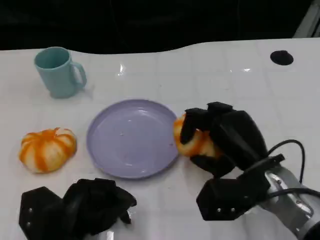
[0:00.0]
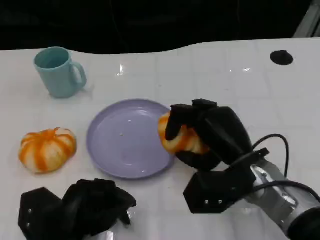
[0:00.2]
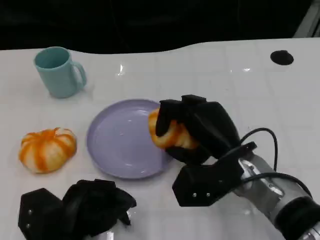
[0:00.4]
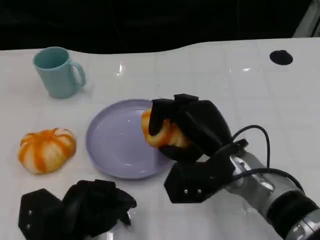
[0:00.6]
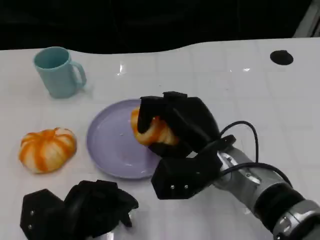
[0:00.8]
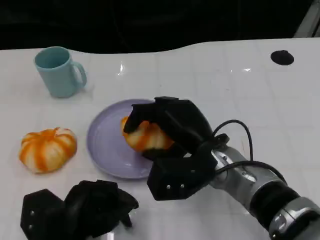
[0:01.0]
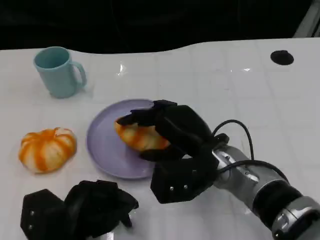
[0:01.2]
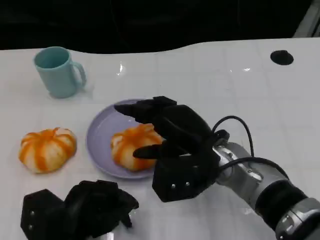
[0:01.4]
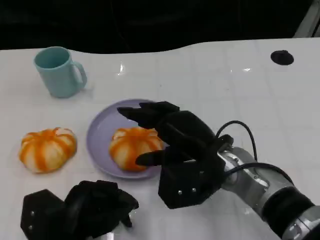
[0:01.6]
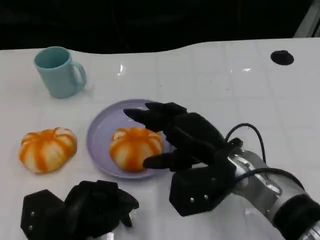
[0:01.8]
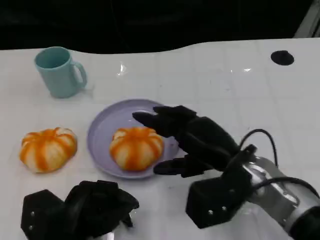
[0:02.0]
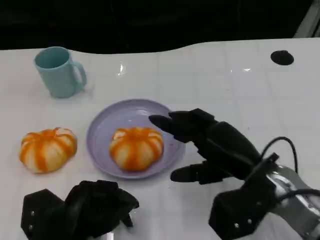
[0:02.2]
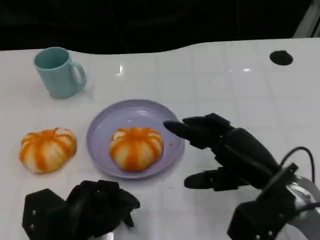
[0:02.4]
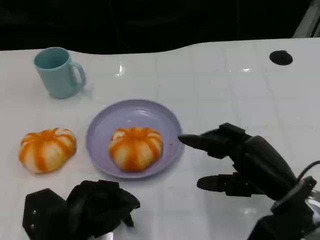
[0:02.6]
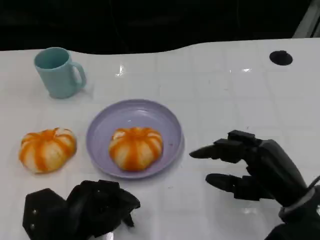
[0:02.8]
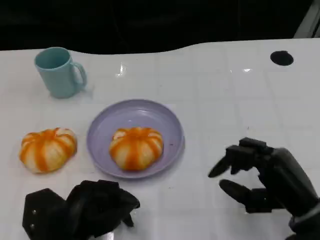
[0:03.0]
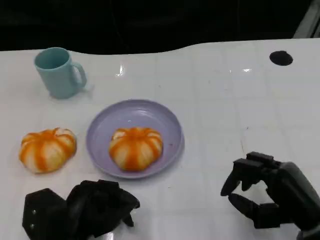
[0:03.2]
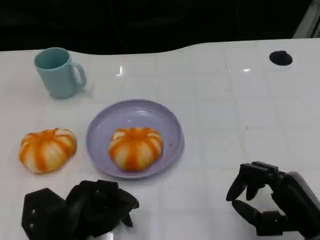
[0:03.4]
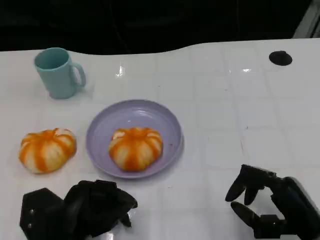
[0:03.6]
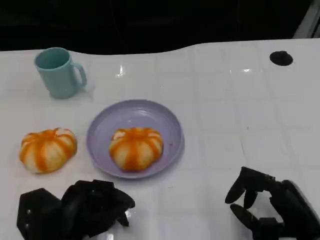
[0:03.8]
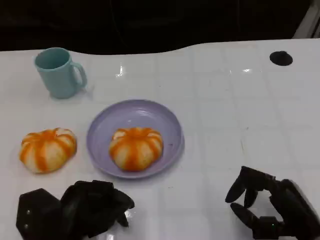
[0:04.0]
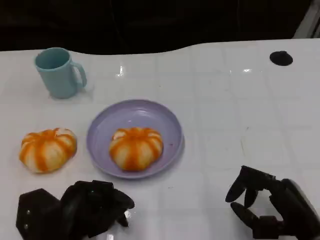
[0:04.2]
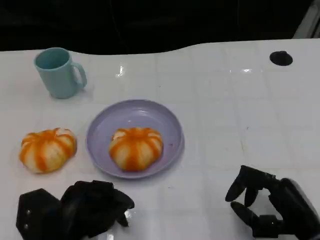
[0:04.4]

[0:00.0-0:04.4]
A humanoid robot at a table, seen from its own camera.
Task of the whole recording: Grasp the bread from the table and place it into the plate.
0:00.0 to 0:01.4: The right hand moves to the left, about 5 cm.
0:01.4 to 0:03.0: The right hand is displaced to the right and backward by approximately 15 cm.
0:03.0 to 0:04.4: The hands move only a little.

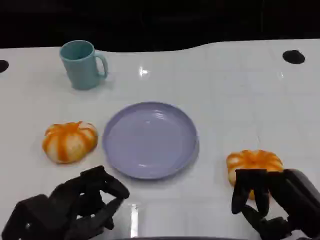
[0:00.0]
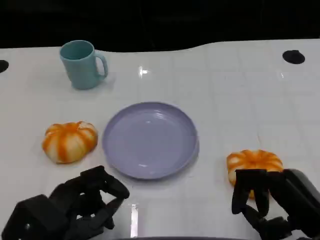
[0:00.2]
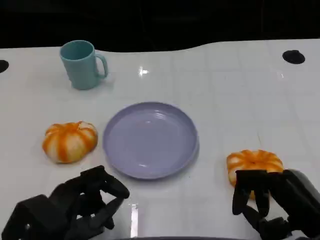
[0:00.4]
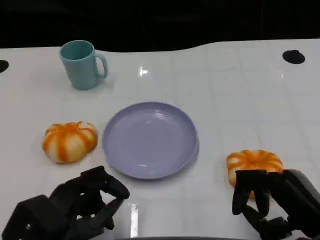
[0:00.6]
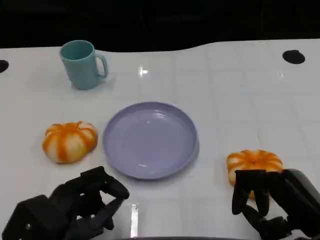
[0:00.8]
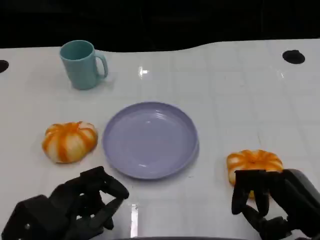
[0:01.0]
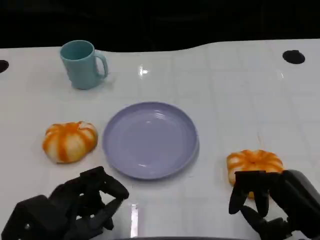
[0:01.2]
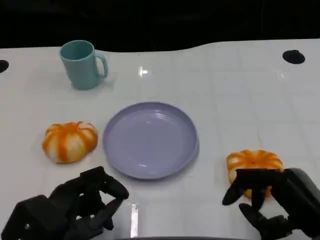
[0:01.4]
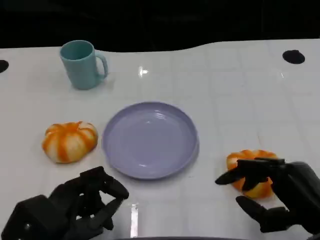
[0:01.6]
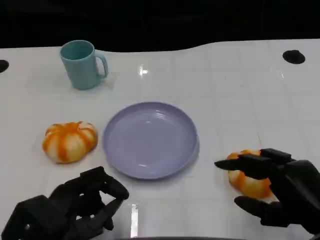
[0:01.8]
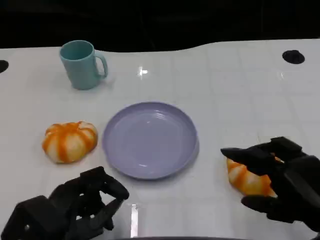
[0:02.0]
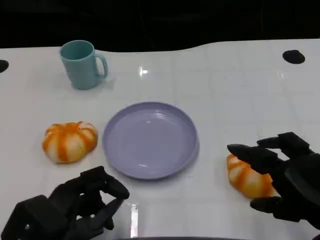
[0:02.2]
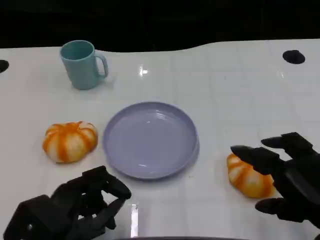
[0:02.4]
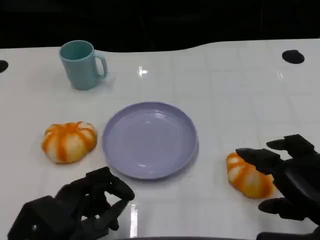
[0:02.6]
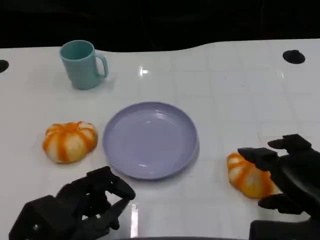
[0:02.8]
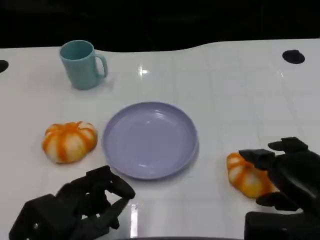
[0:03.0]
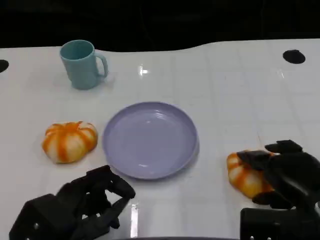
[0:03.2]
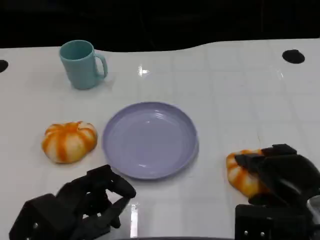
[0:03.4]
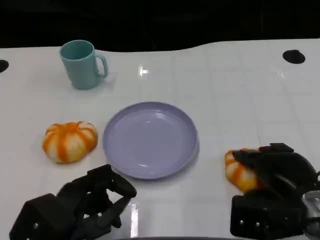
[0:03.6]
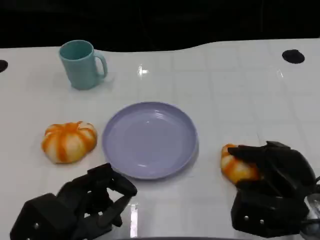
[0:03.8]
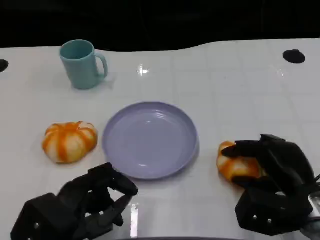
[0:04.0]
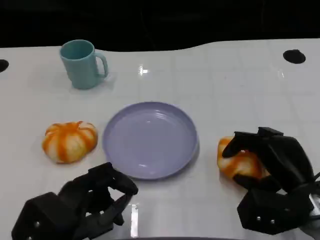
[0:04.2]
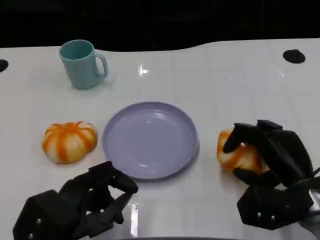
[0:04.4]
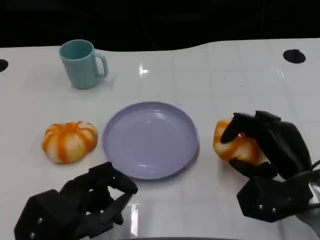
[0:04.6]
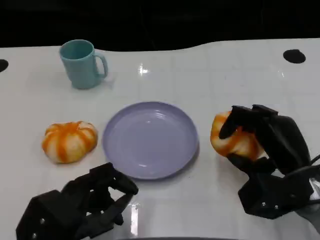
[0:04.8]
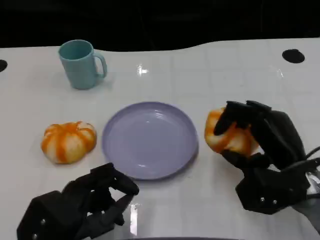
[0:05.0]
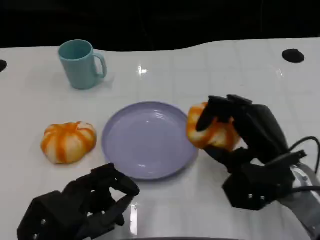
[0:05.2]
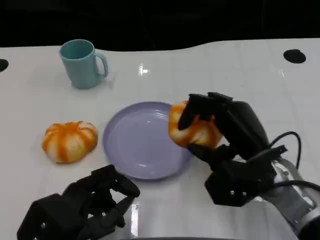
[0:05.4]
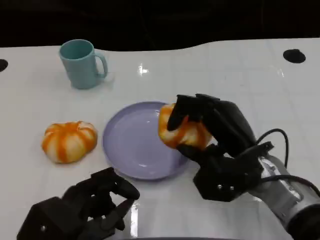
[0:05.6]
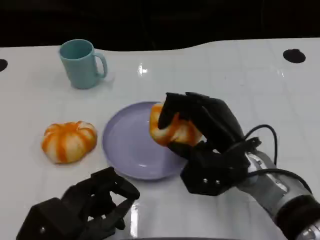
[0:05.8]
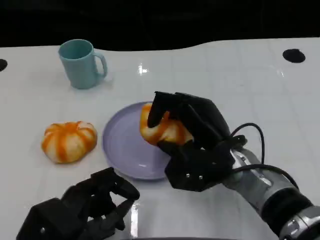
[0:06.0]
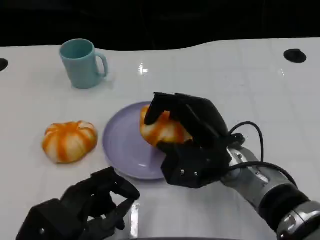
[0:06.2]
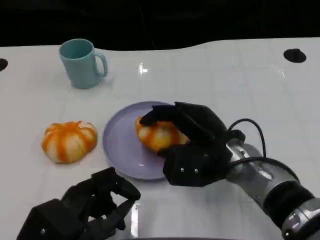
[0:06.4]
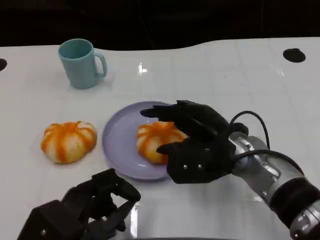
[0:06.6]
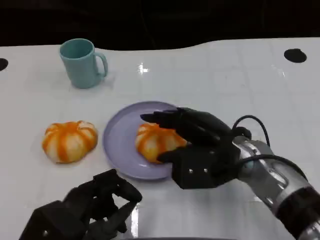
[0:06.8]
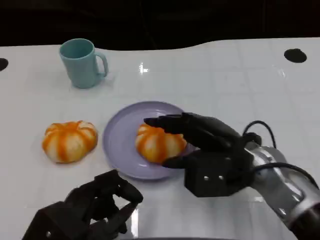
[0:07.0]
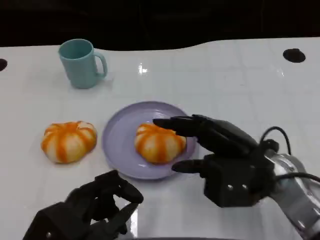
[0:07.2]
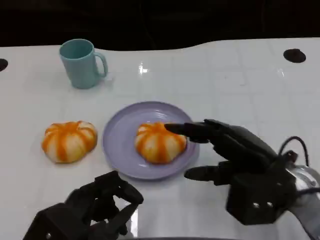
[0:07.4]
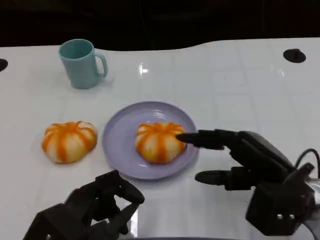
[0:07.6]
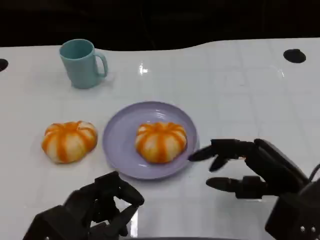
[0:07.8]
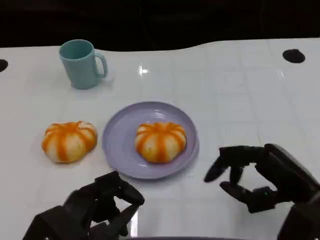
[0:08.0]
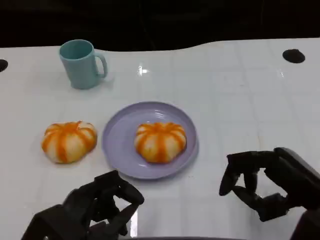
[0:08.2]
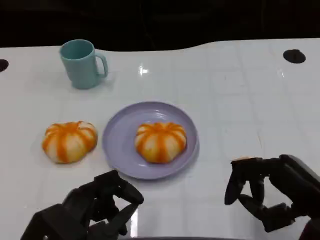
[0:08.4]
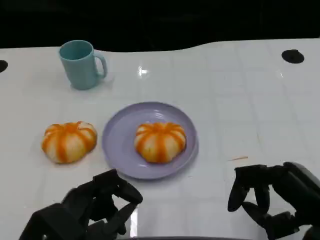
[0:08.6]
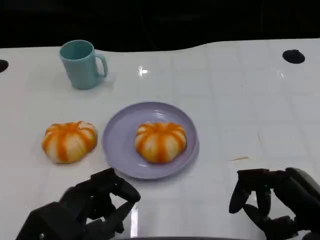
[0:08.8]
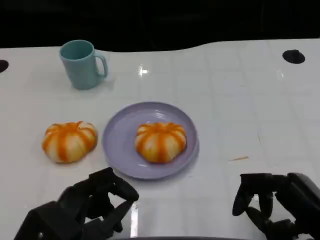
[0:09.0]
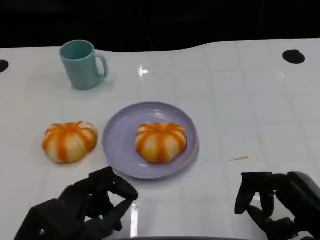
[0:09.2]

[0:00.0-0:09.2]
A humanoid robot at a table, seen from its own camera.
Task of the whole recording: Grasp the bread from the table and place it into the plate.
0:00.0 to 0:01.6: The hands stay close to where they were, moving slightly.
0:03.0 to 0:04.6: The right hand shifts roughly 5 cm forward.
0:04.6 to 0:06.2: The right hand is displaced to the left by some 10 cm.
0:06.2 to 0:07.6: The right hand moves to the right and backward, about 10 cm.
0:07.6 to 0:09.2: The right hand goes some 5 cm backward.

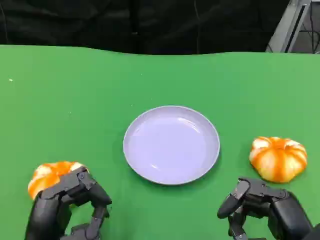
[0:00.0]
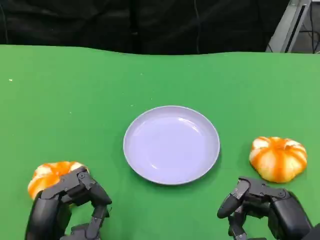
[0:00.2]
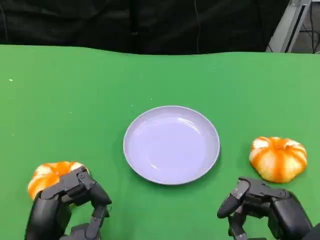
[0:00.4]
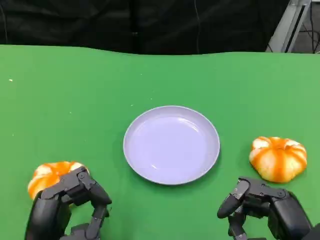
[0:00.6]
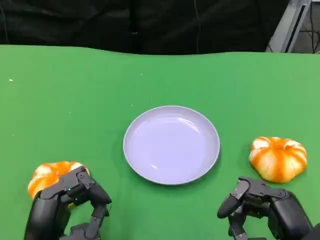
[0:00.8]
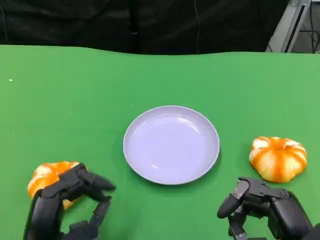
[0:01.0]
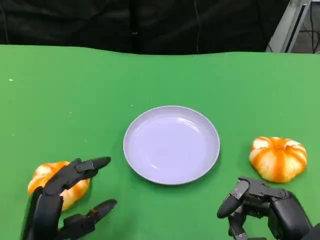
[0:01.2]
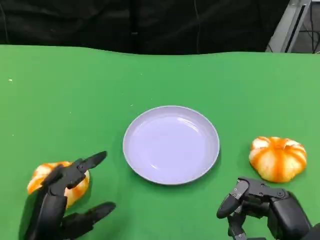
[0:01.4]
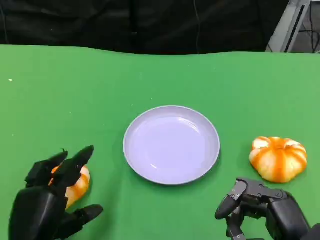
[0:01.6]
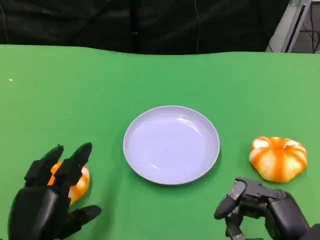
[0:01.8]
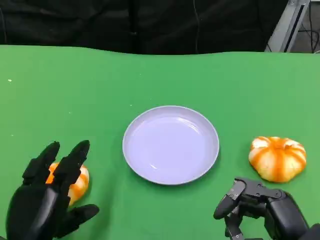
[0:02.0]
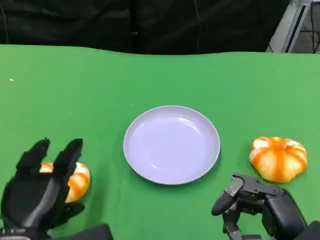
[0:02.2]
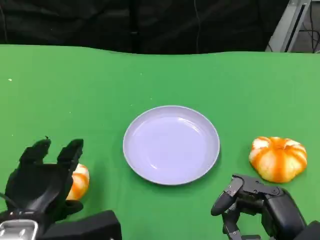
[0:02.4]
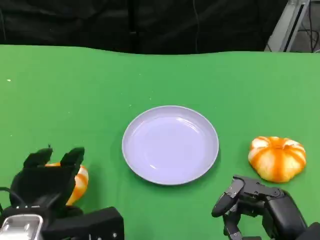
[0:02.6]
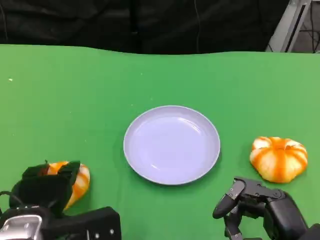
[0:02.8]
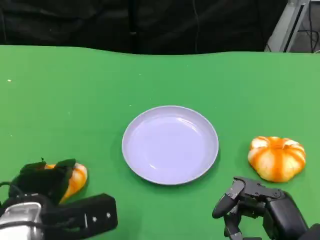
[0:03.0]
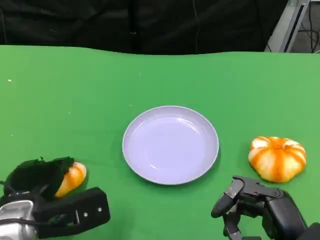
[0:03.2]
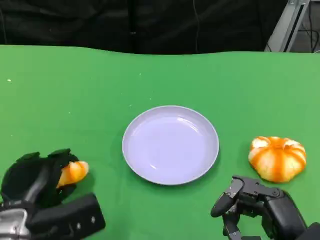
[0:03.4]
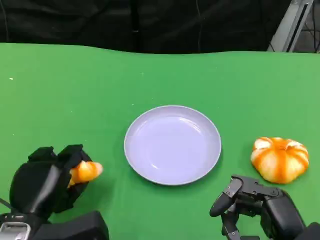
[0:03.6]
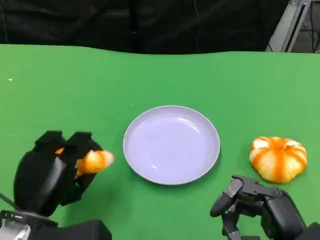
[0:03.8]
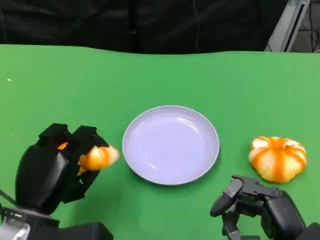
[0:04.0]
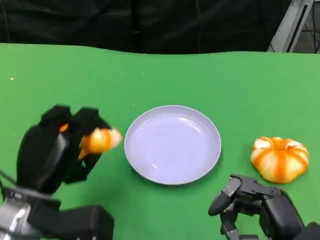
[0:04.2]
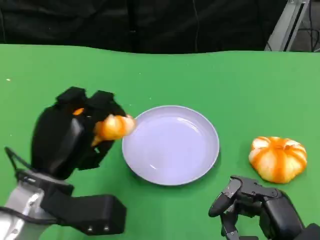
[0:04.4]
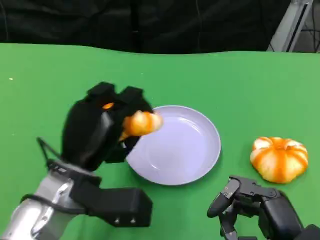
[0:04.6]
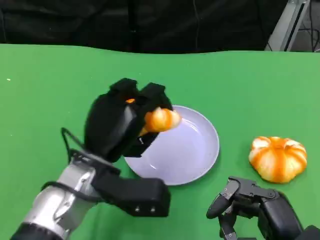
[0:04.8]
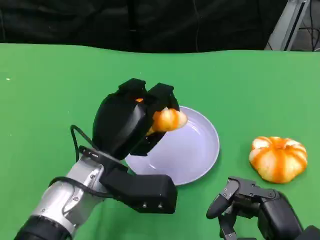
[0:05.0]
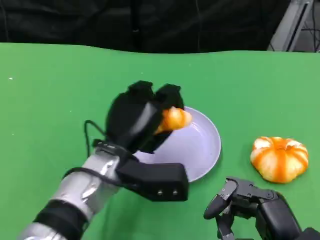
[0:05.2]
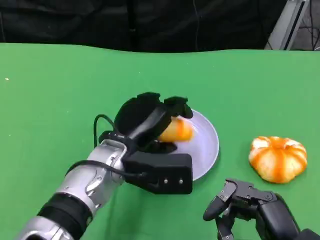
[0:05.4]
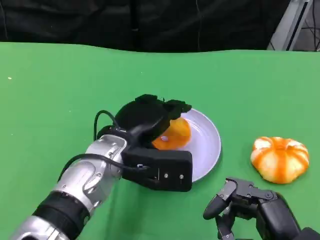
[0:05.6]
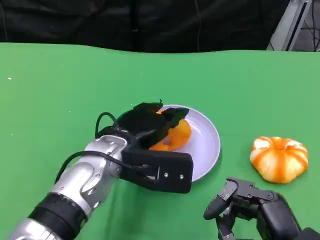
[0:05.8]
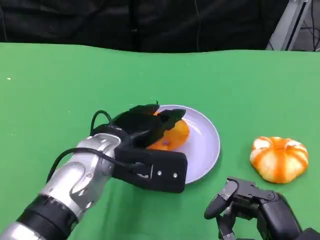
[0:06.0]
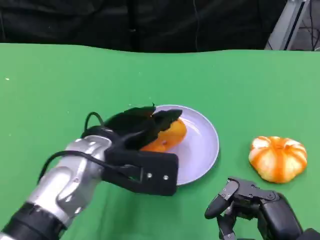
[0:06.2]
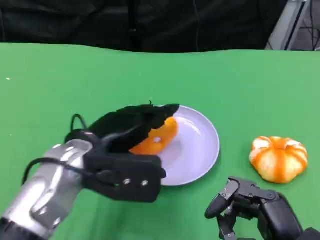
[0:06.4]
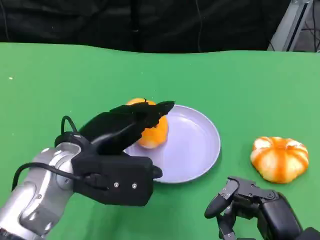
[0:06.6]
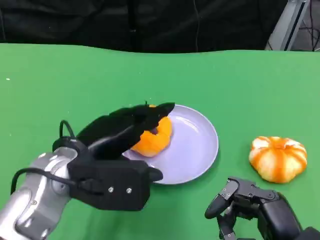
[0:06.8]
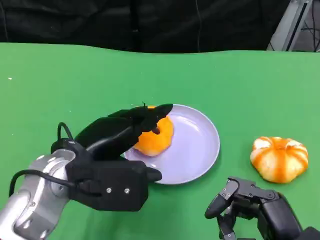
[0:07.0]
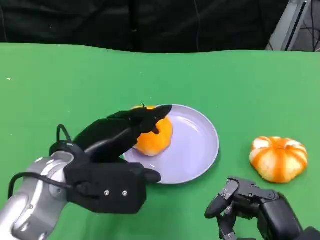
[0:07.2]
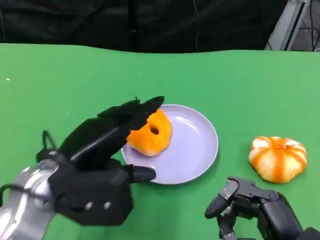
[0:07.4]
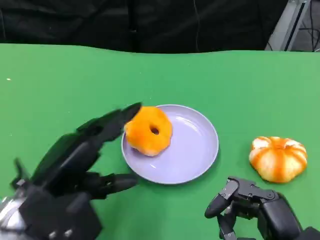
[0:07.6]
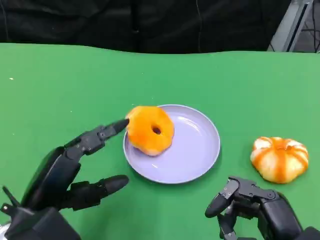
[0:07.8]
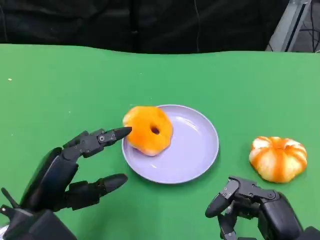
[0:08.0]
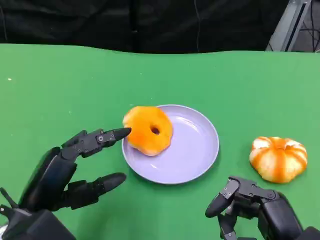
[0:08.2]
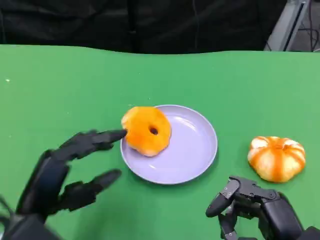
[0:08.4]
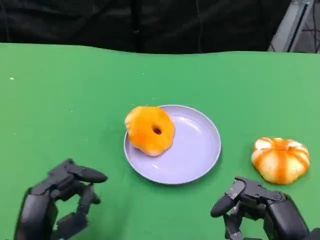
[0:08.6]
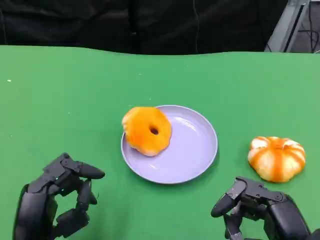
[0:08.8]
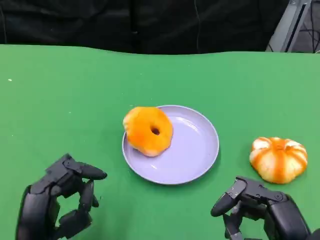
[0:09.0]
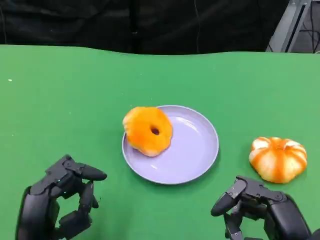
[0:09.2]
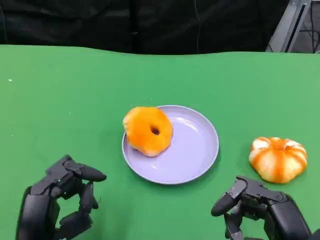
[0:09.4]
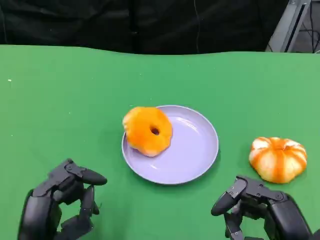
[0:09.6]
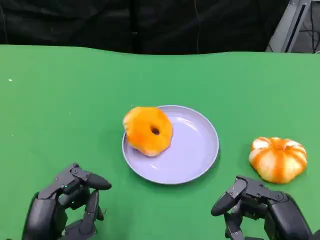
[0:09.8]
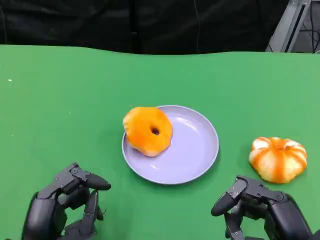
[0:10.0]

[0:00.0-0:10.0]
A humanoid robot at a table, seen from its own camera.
Task of the whole recording: Grasp the bread from the table and place it into the plate.
0:01.4 to 0:02.8: The left hand changes place by approximately 5 cm.
0:04.2 to 0:05.8: The left hand shifts about 10 cm to the right and forward.
0:05.8 to 0:07.2: The left hand heads to the left, covering roughly 5 cm.
0:07.2 to 0:08.6: The left hand moves backward and downward, approximately 15 cm.
0:08.6 to 0:10.0: There are only small adjustments of the hands.
